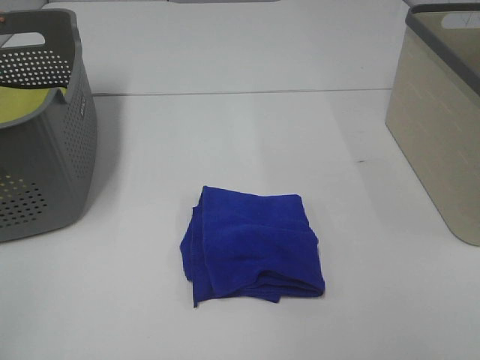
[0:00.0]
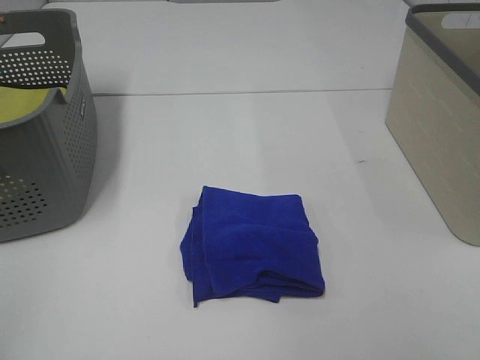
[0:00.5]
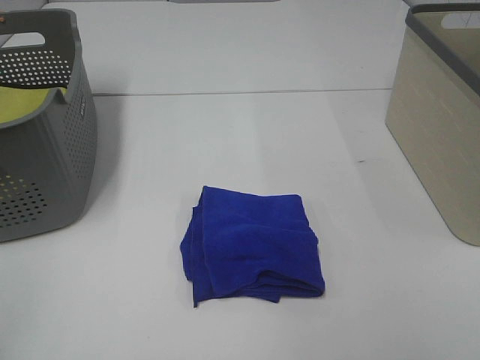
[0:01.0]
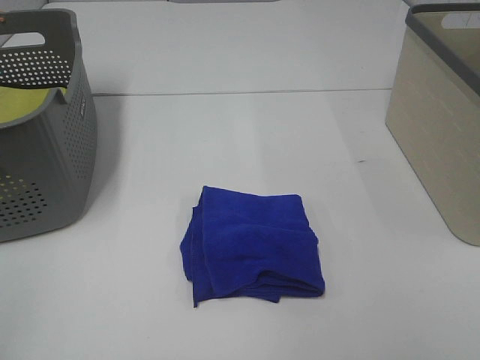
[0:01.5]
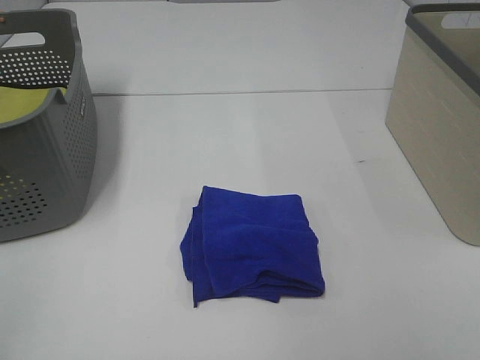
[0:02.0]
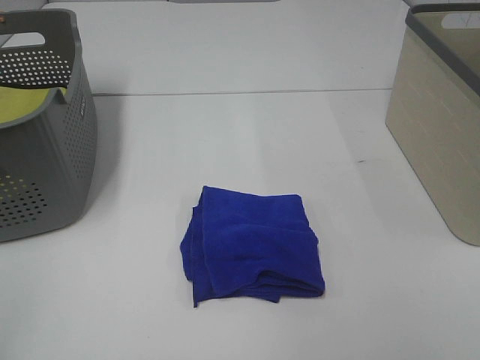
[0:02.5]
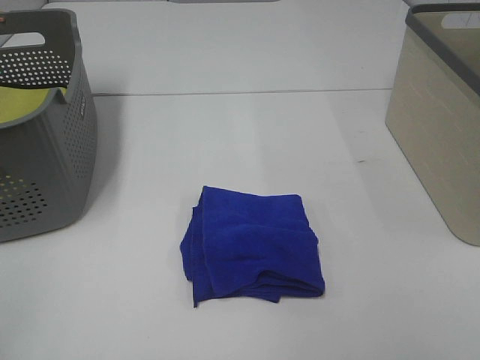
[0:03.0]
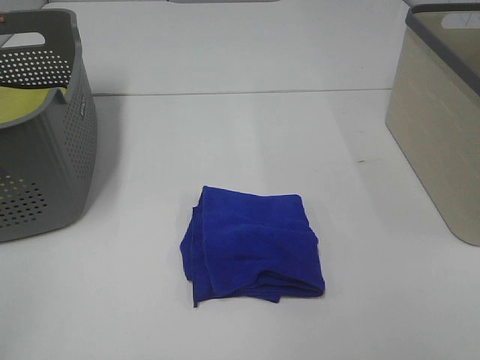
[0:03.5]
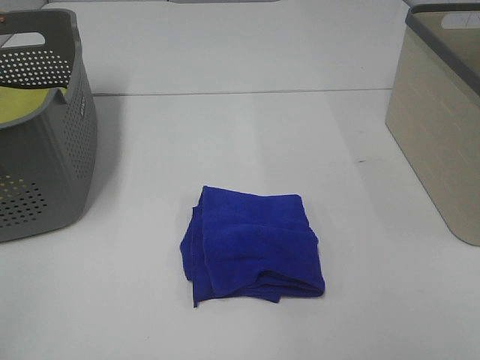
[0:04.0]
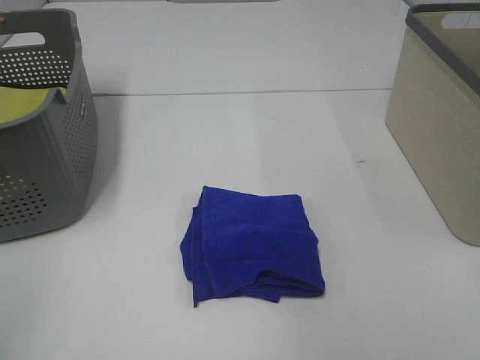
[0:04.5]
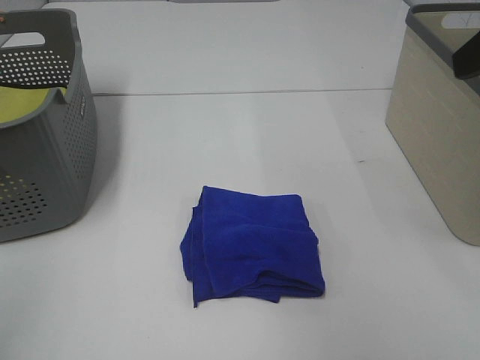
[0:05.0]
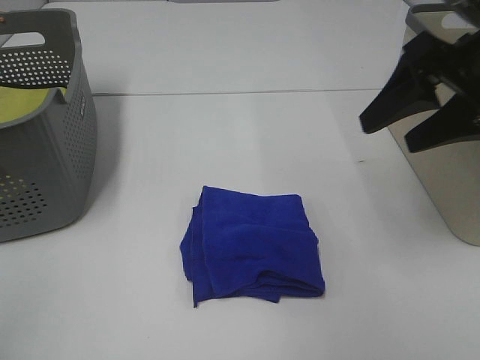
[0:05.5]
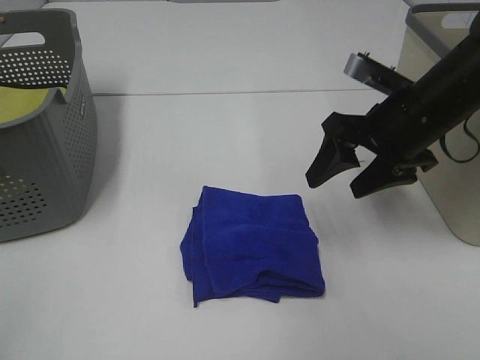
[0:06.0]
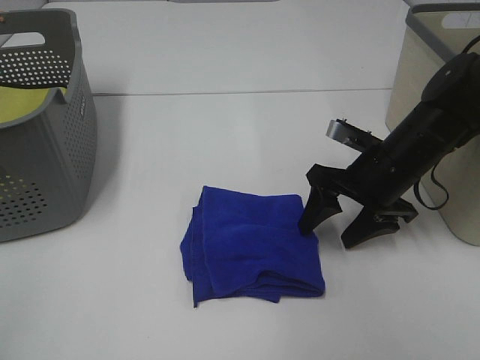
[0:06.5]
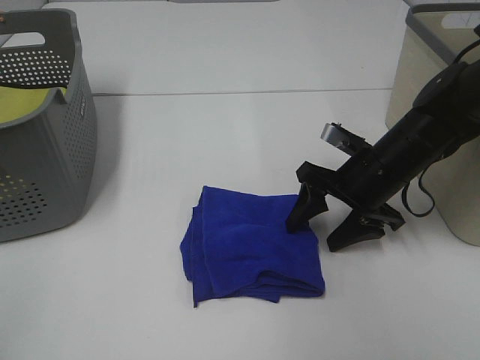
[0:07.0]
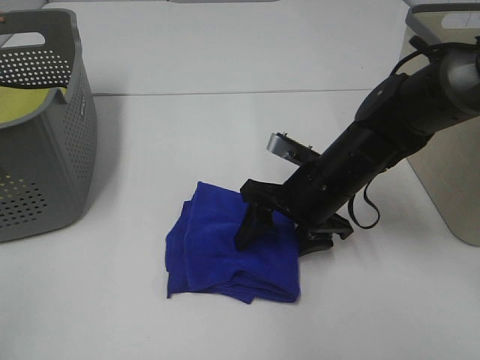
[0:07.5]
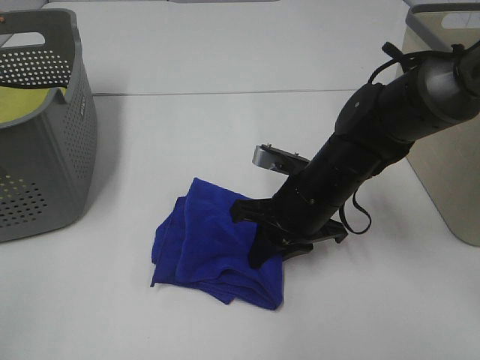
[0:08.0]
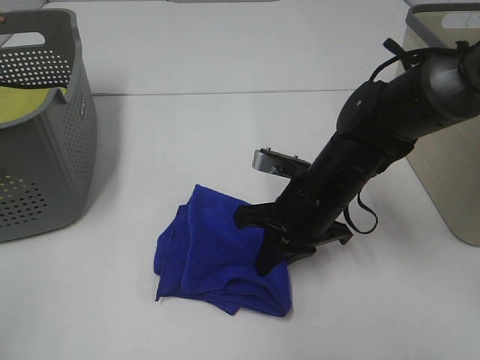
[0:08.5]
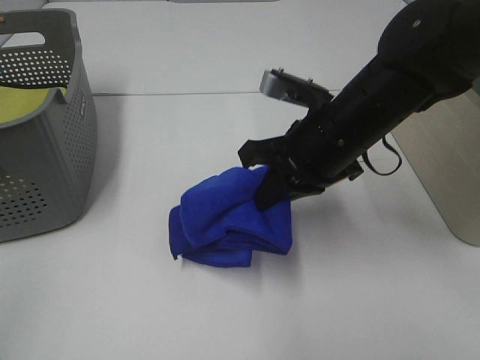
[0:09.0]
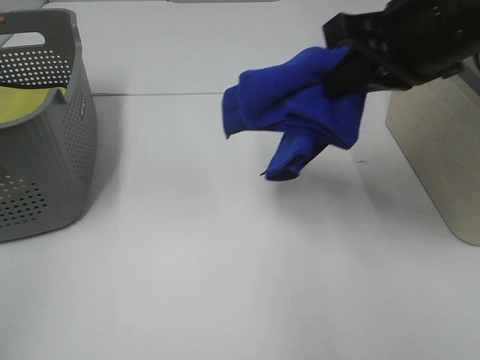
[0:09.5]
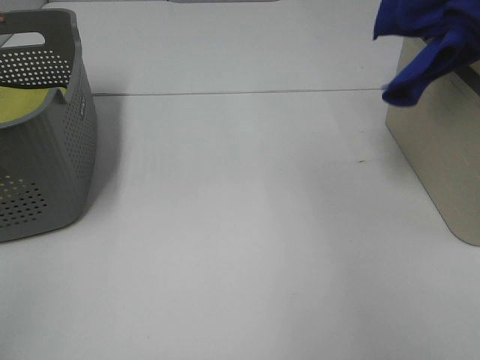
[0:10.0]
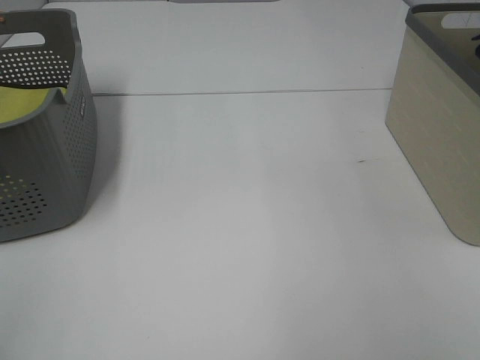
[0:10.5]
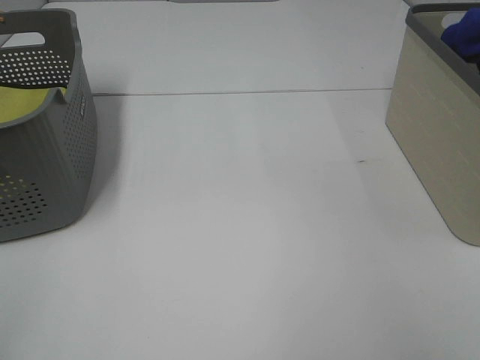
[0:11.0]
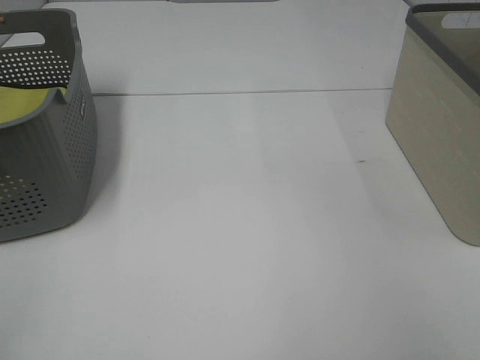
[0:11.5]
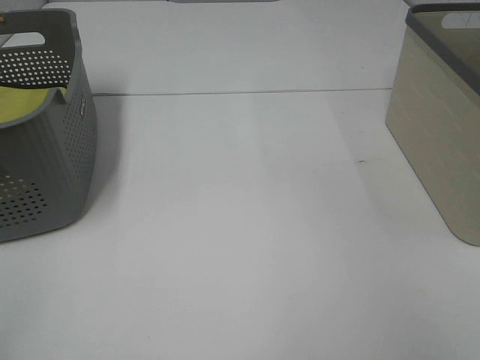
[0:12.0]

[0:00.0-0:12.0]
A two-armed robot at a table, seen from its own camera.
Step, 0:00.0 to 0:08.5: Right hand: grab the folded blue towel.
0:00.0 to 0:02.0: The two grippers keep their place.
0:04.0 to 0:06.0: The right gripper heads forward and downward, covering roughly 30 cm.
0:06.0 to 0:08.0: The right gripper is displaced to the left and downward by approximately 15 cm, and closes.
0:08.0 to 0:10.0: The right gripper is displaced upward and to the right by roughly 35 cm.
0:10.0 to 0:12.0: The right gripper heads downward, to the right and forward, covering about 15 cm, and opens.

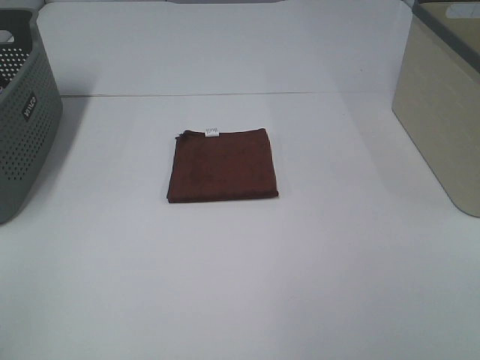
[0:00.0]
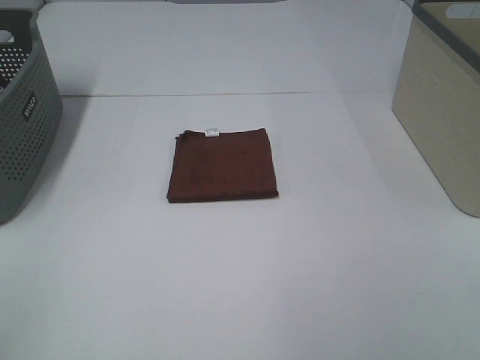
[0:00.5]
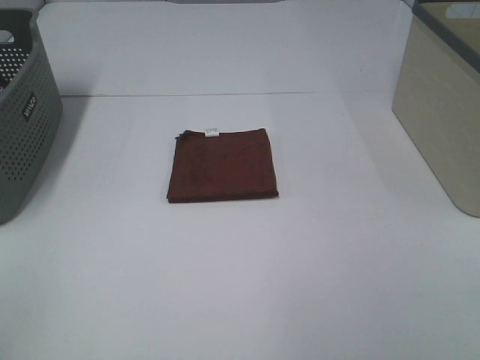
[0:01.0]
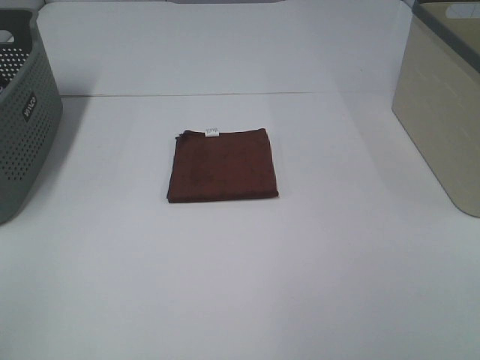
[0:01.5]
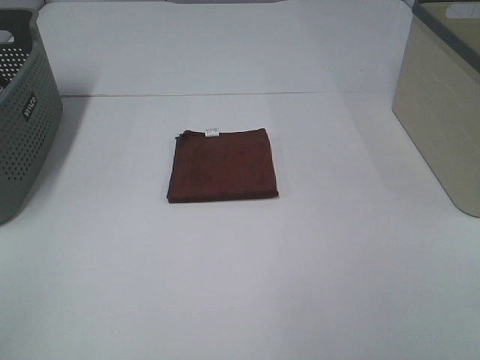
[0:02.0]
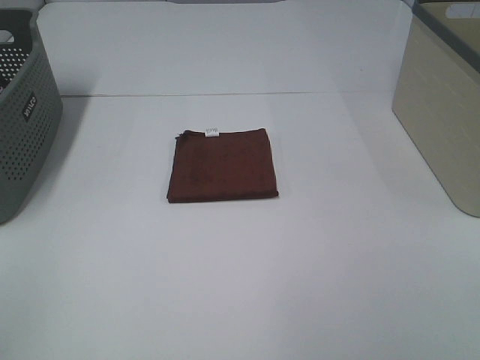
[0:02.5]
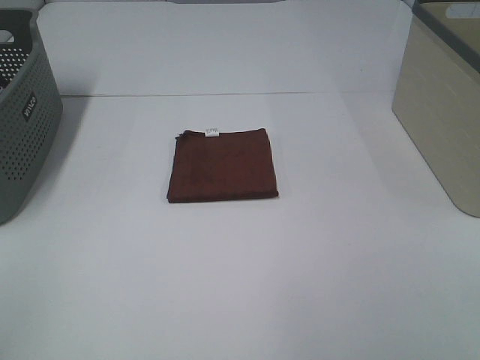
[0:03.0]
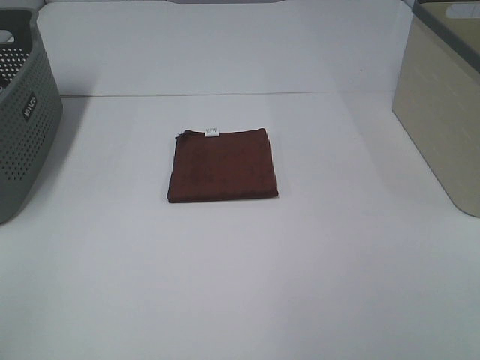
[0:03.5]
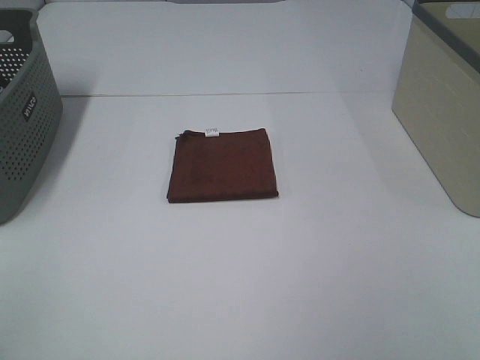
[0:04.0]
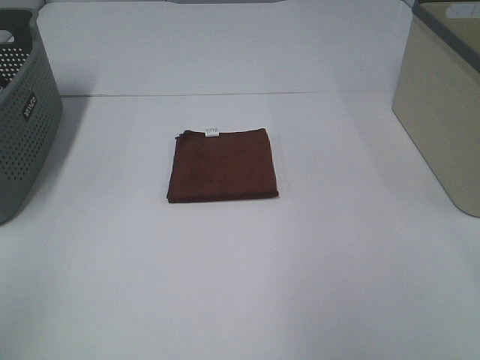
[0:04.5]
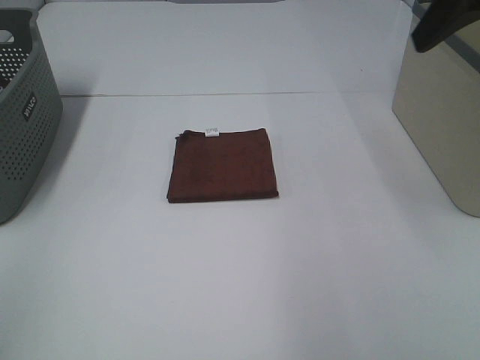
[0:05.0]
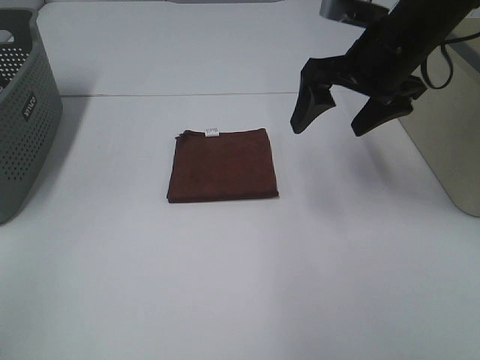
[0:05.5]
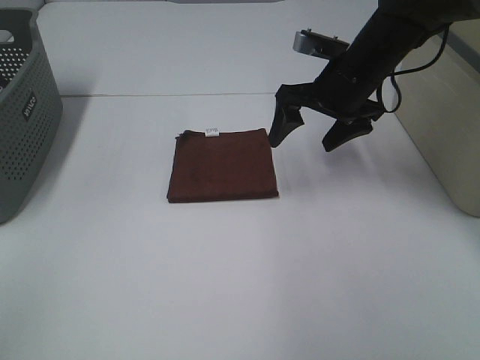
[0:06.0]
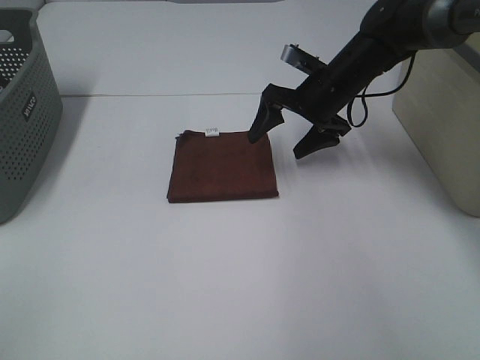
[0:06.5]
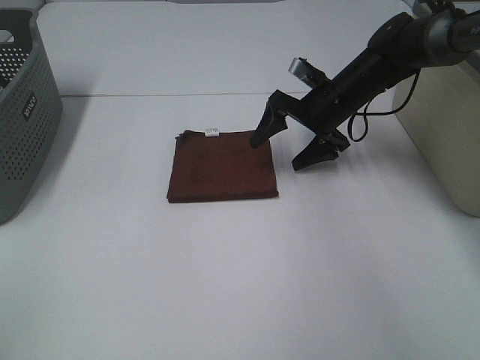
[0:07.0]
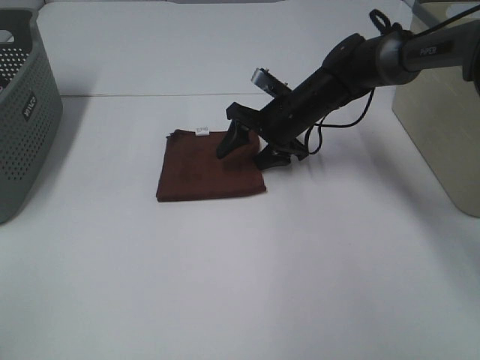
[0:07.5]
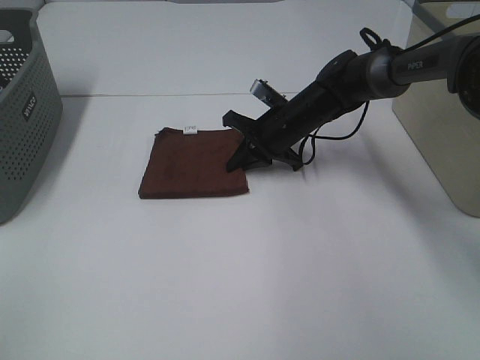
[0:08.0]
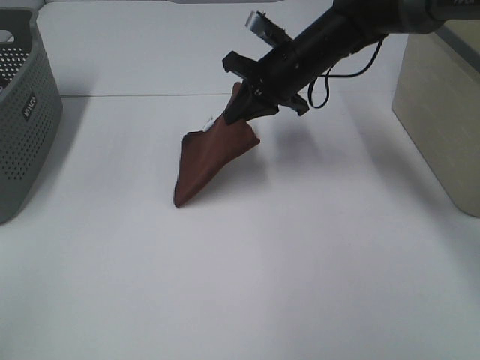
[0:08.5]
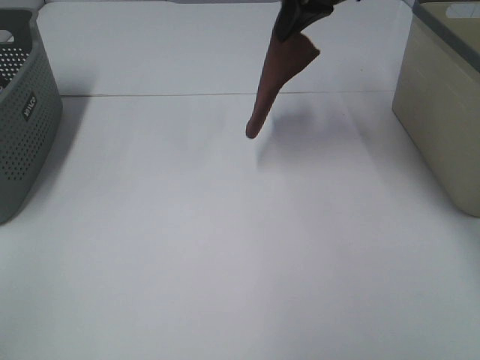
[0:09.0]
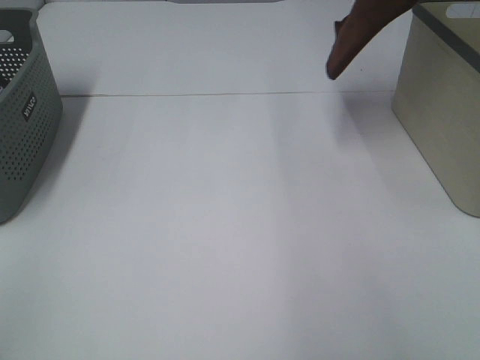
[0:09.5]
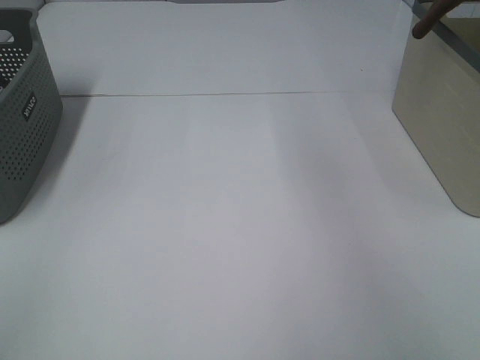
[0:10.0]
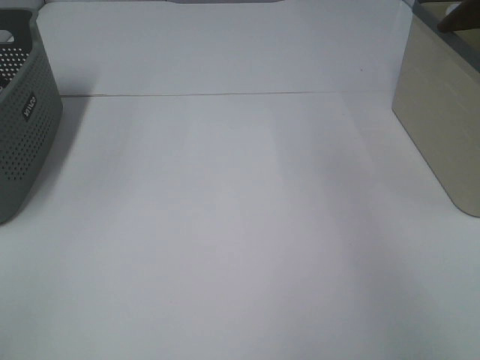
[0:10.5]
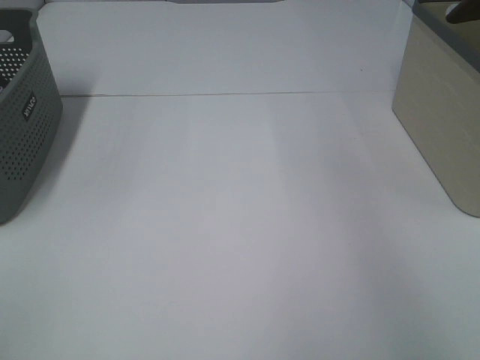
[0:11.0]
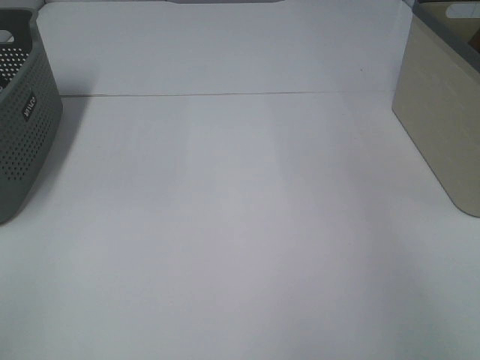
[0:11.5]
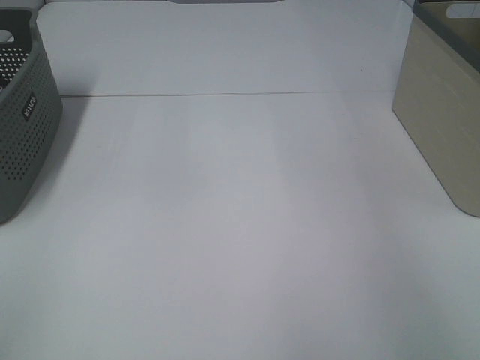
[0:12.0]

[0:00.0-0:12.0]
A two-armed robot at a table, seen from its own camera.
Step, 0:00.0 to 0:07.5: Right hand: grab the folded brown towel.
0:00.0 to 0:02.0: Neither gripper changes place.
0:04.0 to 0:06.0: The right gripper goes about 40 cm forward, to the left and downward.
0:06.0 to 0:08.0: The right gripper goes approximately 10 cm downward and to the left, and closes.
0:08.0 to 0:10.0: The right gripper shifts approximately 40 cm upward and to the right.

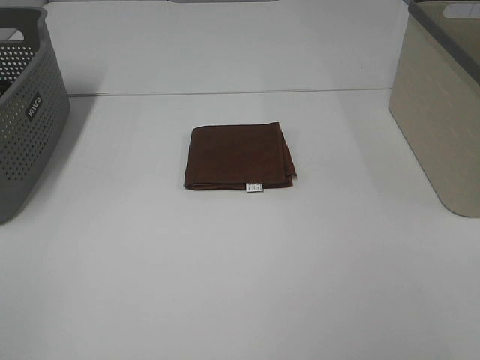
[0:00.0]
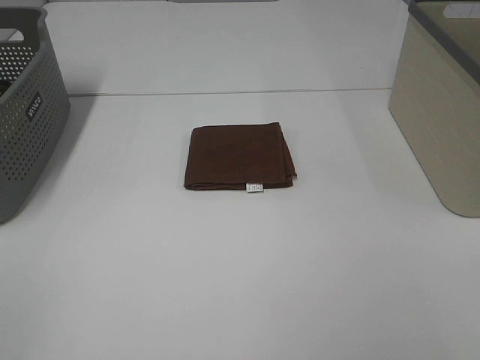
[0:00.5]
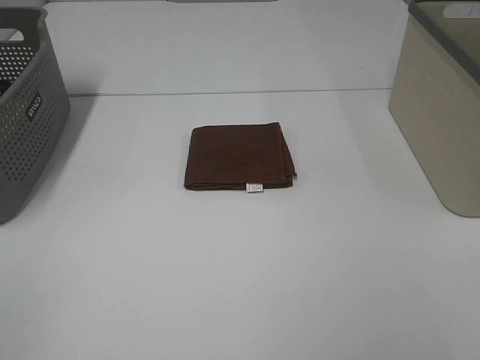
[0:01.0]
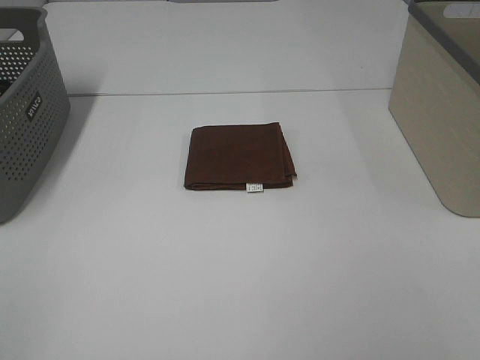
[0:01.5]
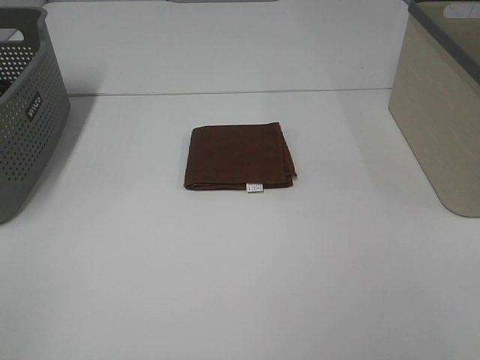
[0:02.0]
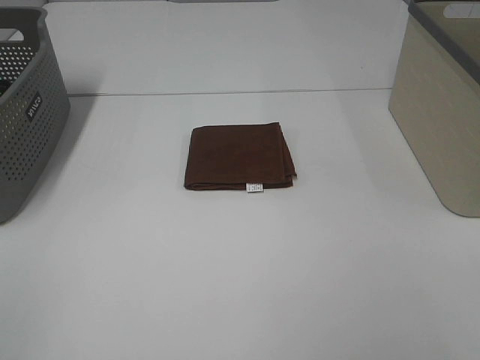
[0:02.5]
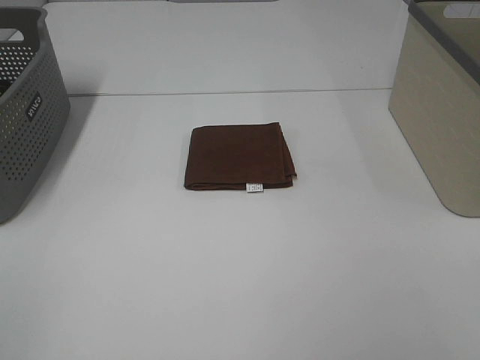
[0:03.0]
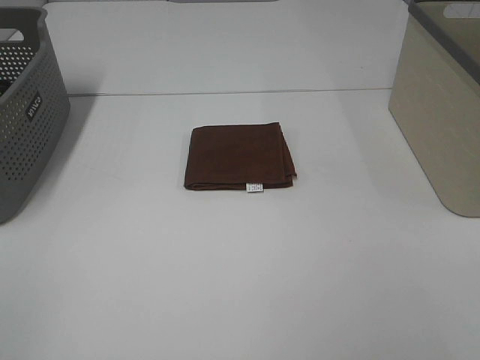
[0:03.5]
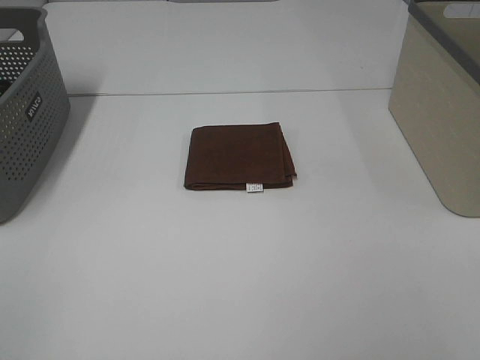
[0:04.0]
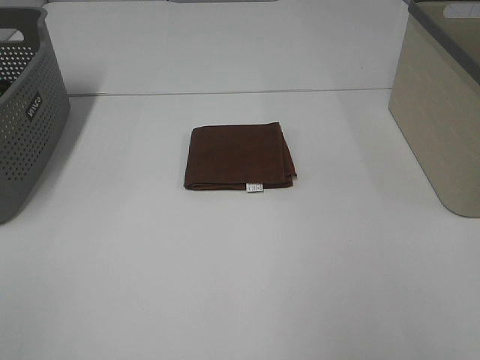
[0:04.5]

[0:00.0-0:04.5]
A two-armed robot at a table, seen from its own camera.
0:00.0 to 0:02.0: Both grippers stay about where they are.
